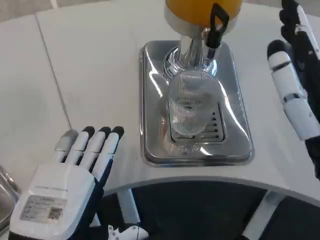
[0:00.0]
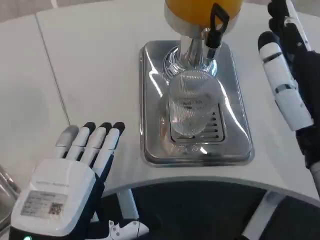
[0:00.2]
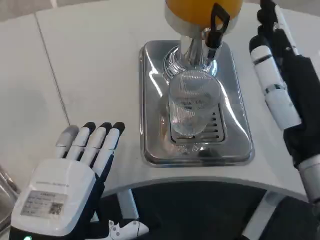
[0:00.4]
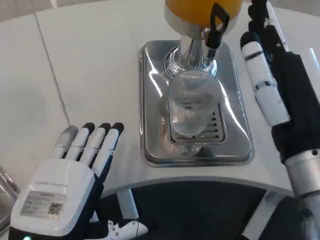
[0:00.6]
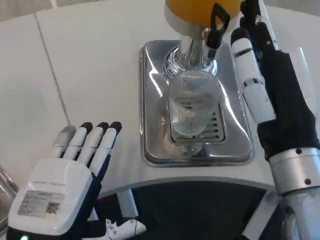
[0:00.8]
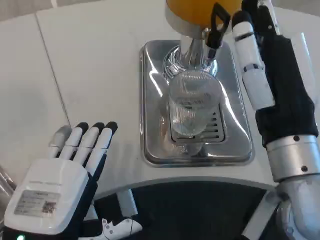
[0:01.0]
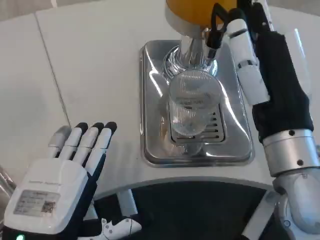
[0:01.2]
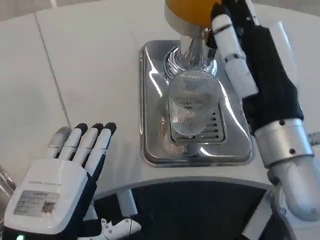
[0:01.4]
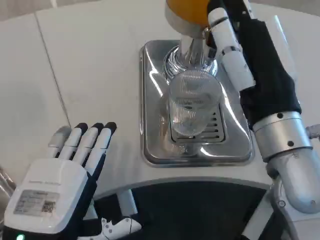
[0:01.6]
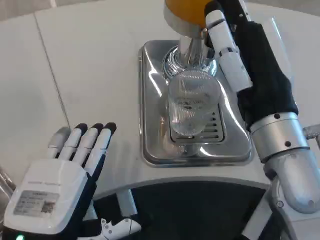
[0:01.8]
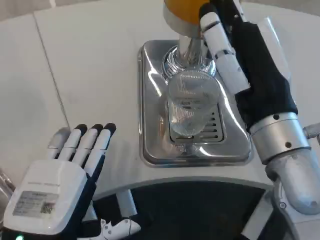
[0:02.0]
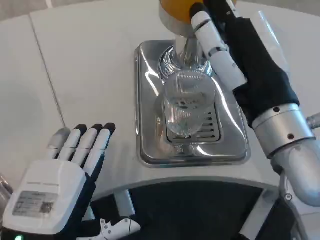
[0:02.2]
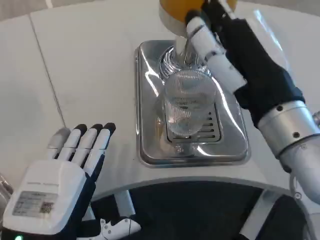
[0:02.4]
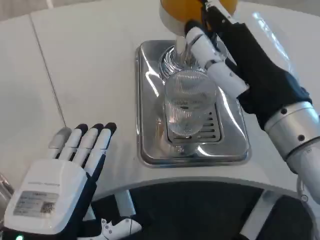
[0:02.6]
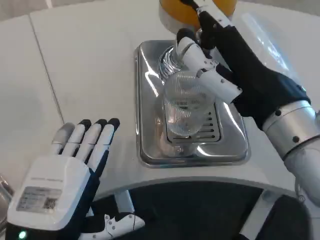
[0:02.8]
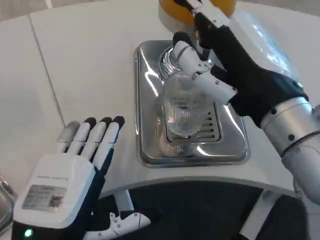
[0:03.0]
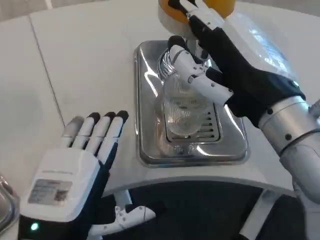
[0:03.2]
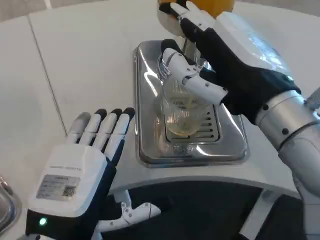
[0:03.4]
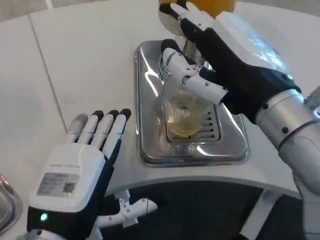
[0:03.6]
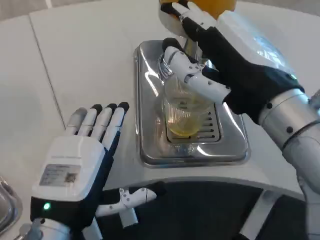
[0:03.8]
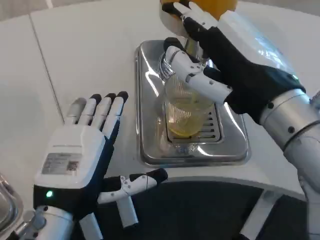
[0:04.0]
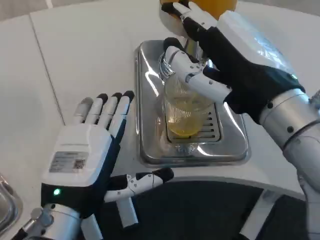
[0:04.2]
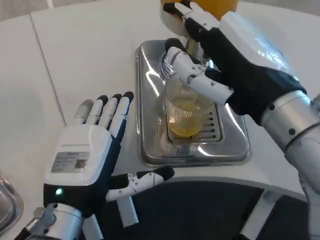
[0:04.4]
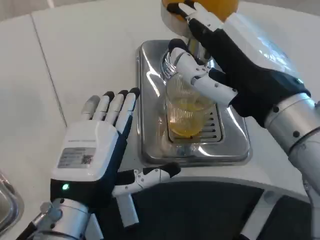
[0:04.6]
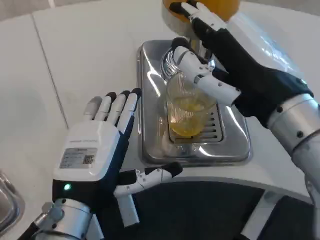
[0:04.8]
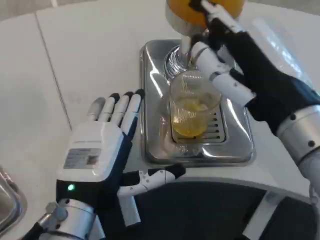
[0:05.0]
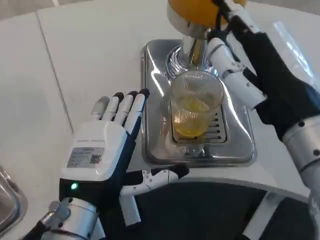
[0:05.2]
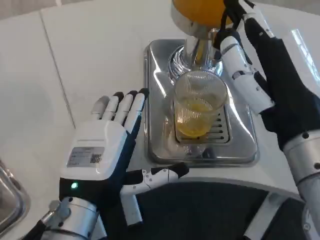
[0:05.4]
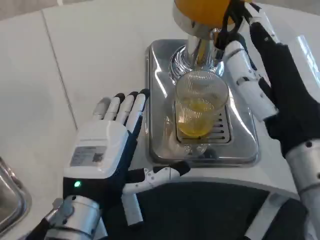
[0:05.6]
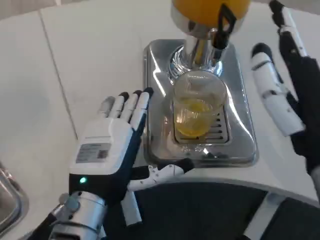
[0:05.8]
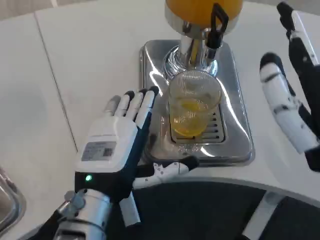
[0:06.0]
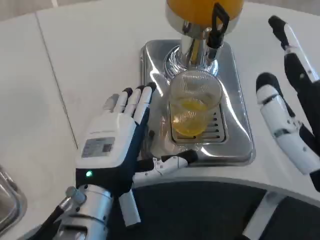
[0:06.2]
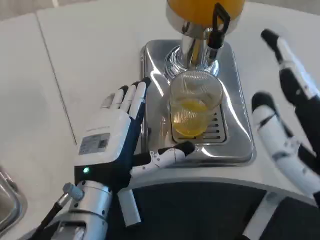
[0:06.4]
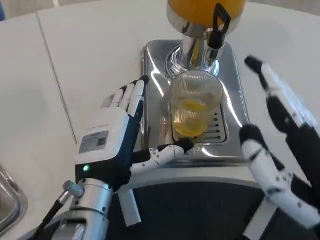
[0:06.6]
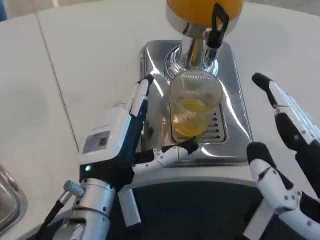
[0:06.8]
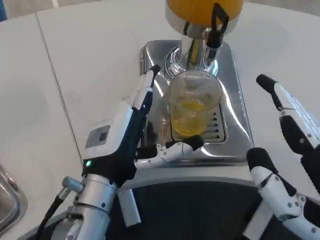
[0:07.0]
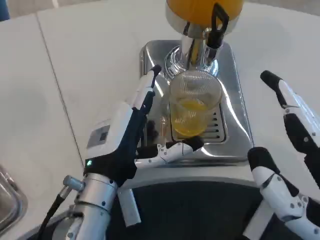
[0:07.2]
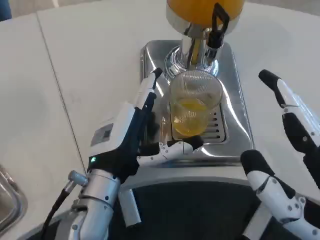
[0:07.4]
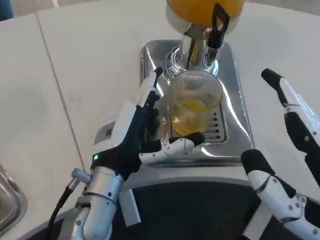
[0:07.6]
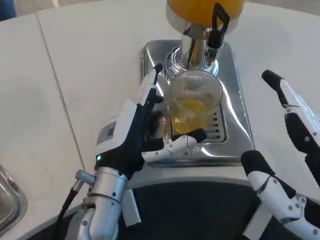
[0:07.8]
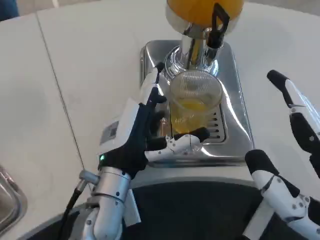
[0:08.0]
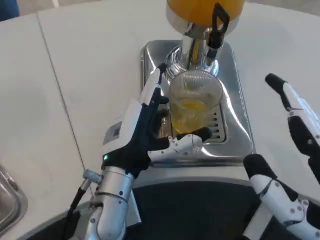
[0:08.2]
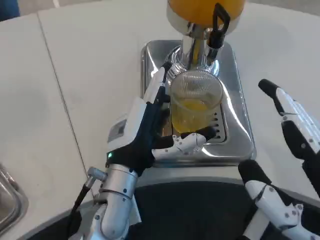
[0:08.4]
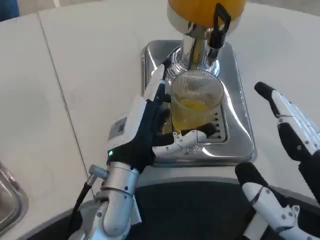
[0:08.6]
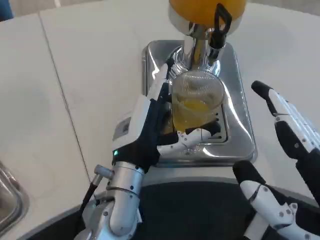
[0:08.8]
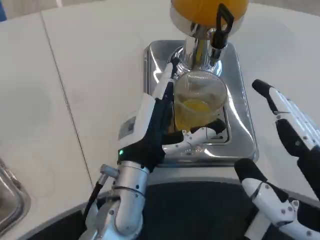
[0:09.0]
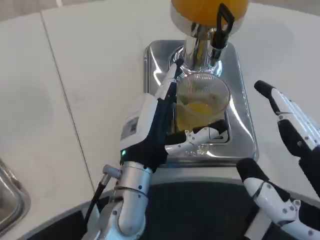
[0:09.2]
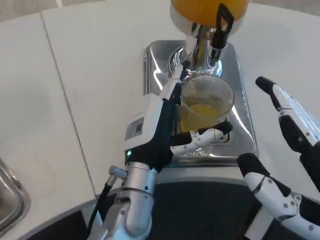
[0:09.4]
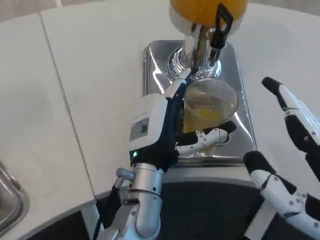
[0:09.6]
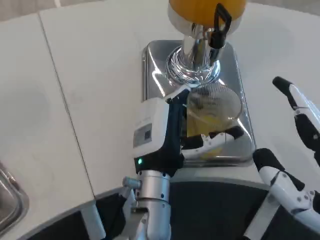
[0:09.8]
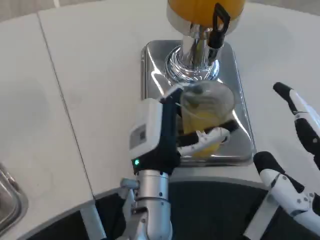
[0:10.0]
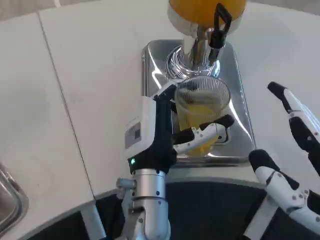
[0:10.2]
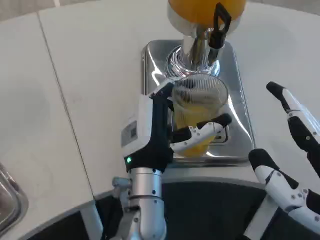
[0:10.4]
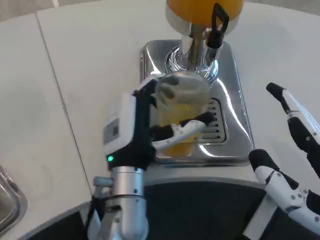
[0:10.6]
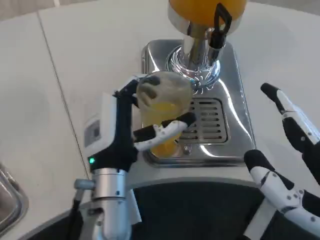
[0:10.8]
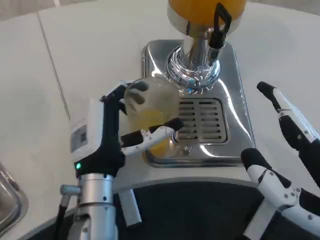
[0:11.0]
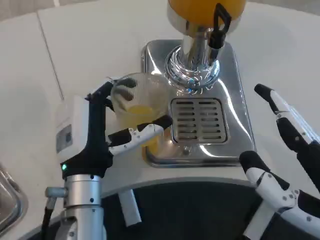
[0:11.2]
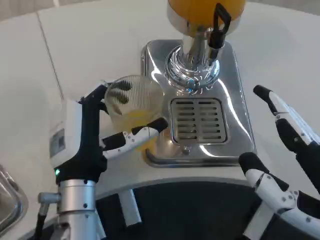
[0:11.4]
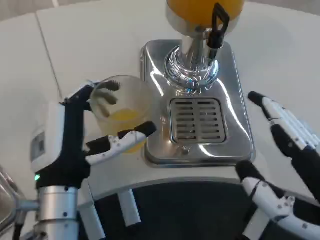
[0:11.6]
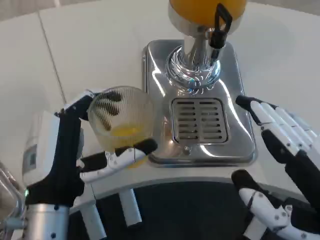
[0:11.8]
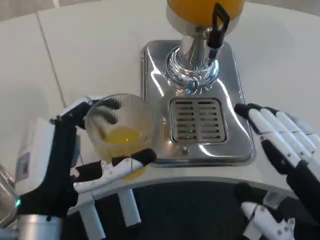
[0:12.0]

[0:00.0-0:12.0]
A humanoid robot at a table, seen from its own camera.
Task of the whole recording: Grasp the cup under the faucet to collect the drink, then remove the cup.
0:00.0 to 0:01.6: The right hand shifts some 5 cm forward.
0:03.0 to 0:04.4: The left hand travels forward by some 5 cm.
0:04.4 to 0:06.0: The right hand goes about 10 cm backward and downward.
0:06.0 to 0:07.6: The right hand heads backward, covering approximately 5 cm.
0:10.4 to 0:12.0: The left hand heads to the left and backward, covering some 15 cm.

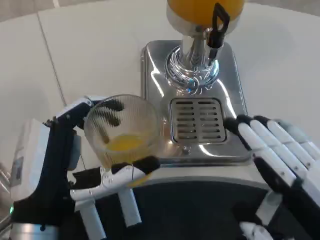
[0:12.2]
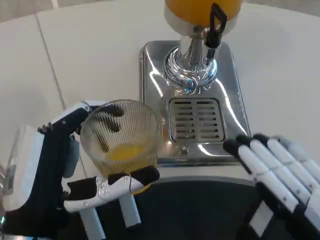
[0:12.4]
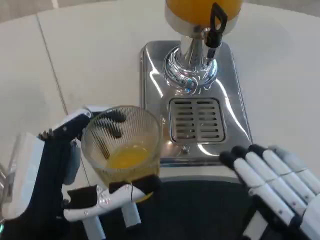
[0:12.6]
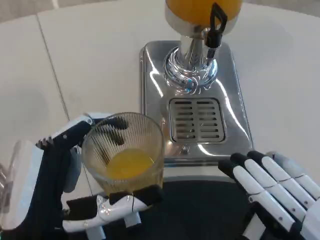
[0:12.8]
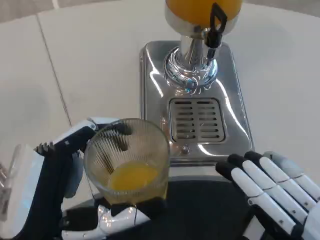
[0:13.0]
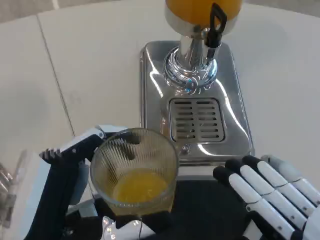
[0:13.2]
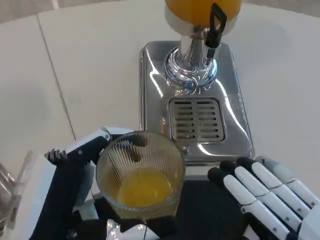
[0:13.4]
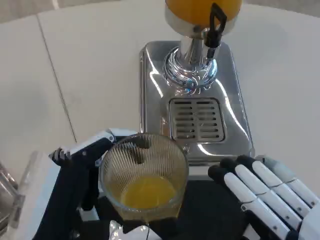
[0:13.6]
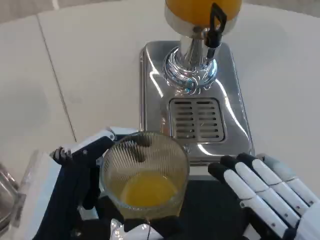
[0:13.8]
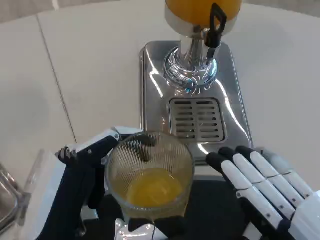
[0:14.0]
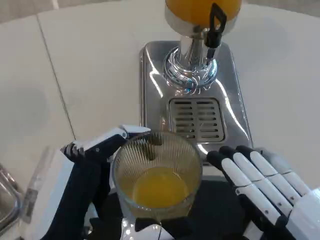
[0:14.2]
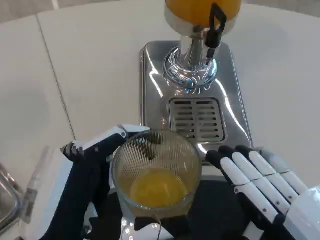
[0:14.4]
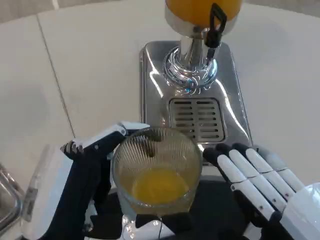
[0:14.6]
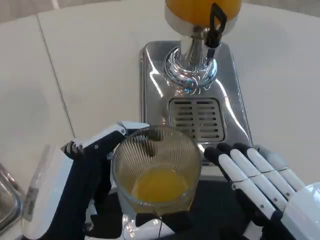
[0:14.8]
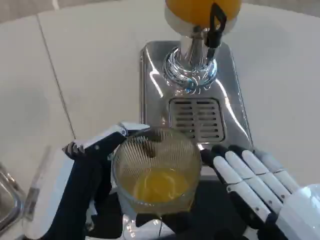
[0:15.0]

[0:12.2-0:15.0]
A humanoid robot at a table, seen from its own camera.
Task of the whole recording: Grasp the cup under the faucet to collect the drink, then remove the cup.
0:13.6 to 0:15.0: The hands make only small movements.

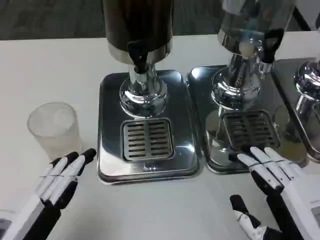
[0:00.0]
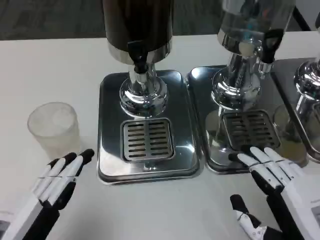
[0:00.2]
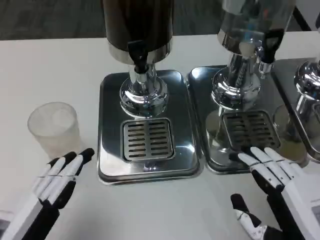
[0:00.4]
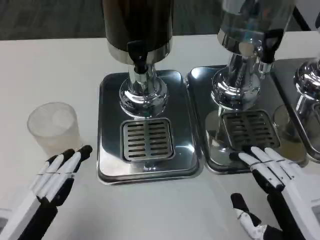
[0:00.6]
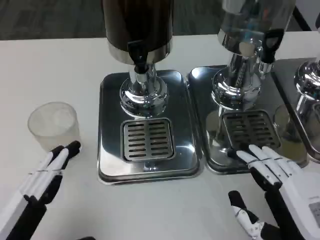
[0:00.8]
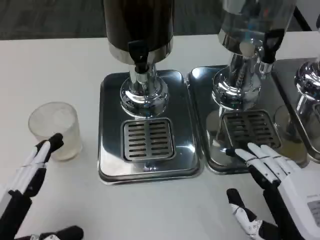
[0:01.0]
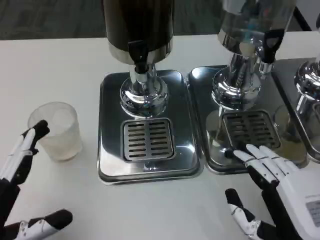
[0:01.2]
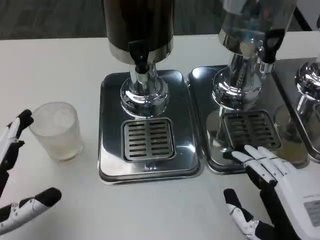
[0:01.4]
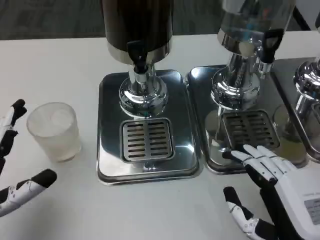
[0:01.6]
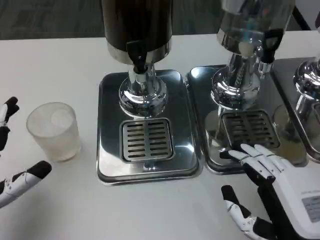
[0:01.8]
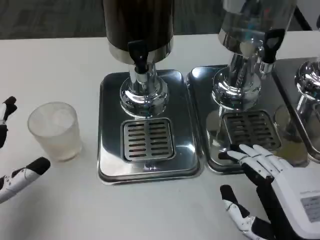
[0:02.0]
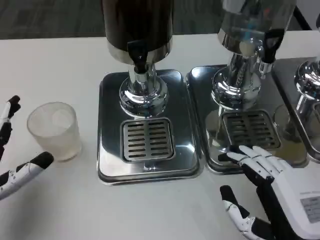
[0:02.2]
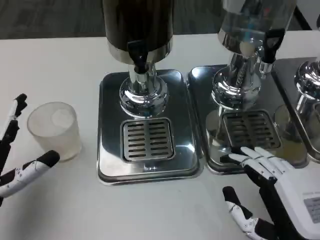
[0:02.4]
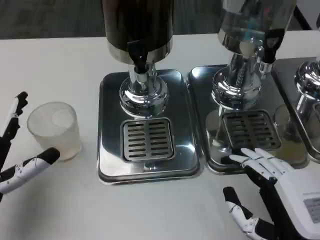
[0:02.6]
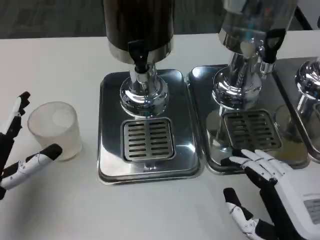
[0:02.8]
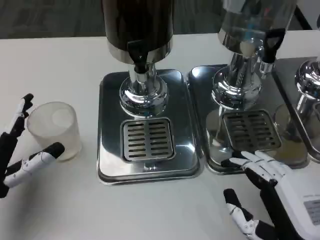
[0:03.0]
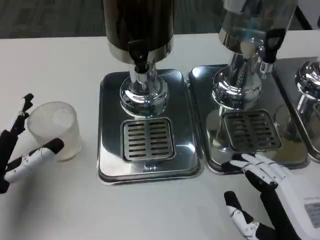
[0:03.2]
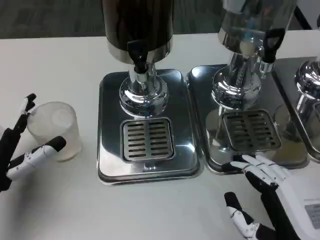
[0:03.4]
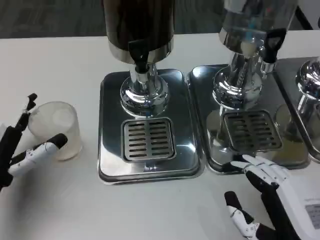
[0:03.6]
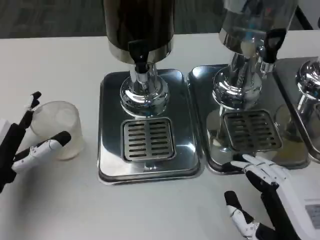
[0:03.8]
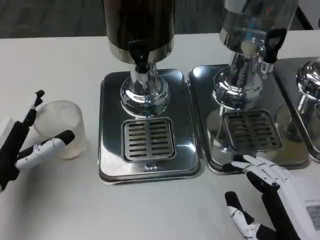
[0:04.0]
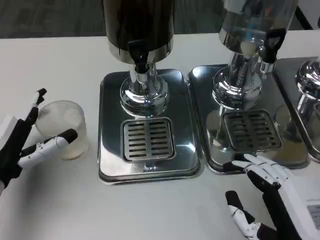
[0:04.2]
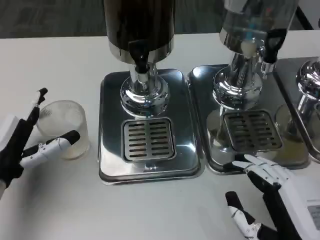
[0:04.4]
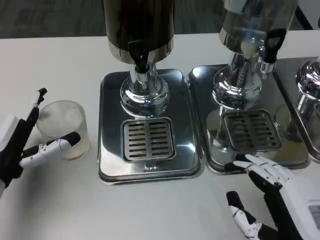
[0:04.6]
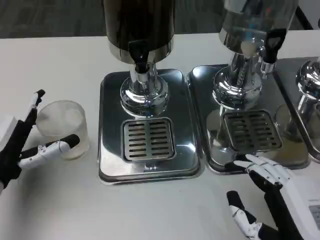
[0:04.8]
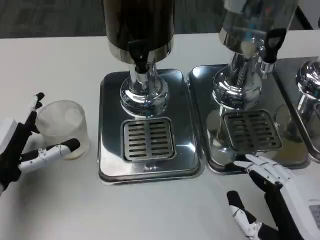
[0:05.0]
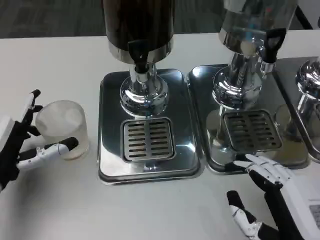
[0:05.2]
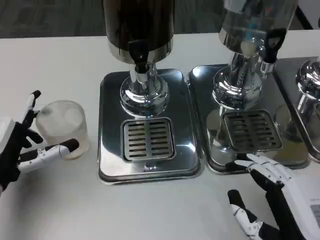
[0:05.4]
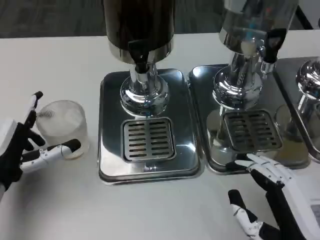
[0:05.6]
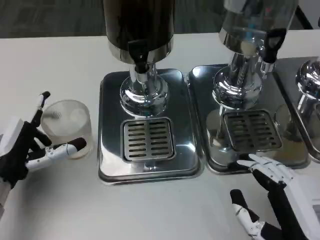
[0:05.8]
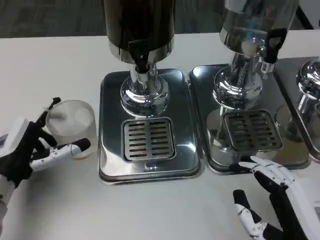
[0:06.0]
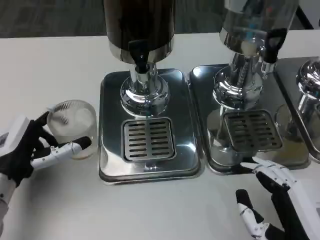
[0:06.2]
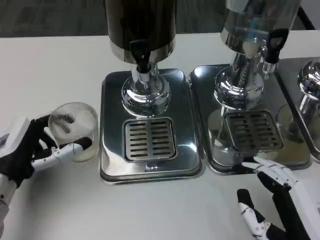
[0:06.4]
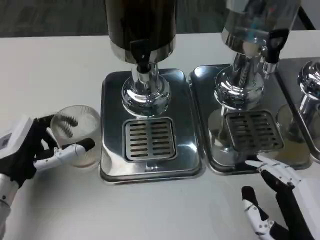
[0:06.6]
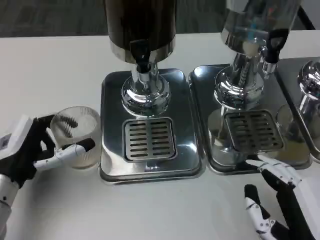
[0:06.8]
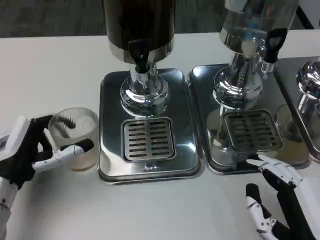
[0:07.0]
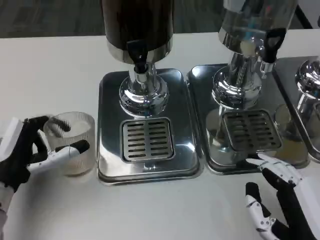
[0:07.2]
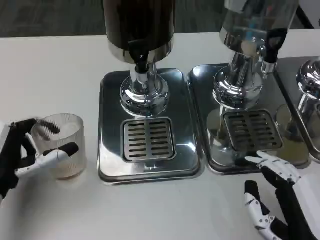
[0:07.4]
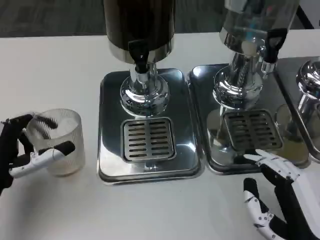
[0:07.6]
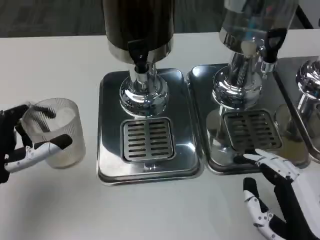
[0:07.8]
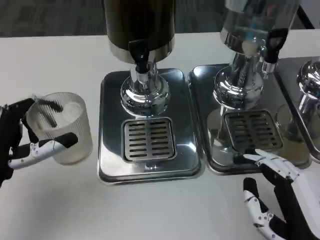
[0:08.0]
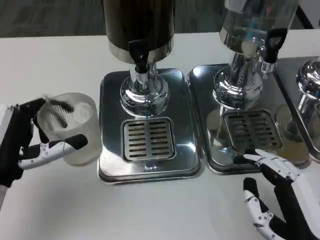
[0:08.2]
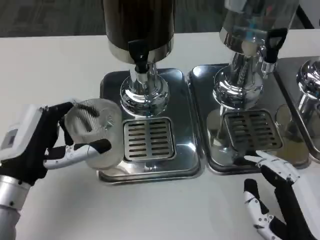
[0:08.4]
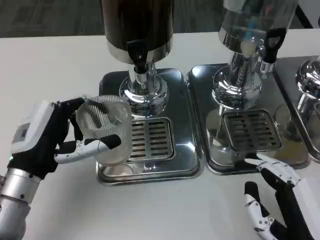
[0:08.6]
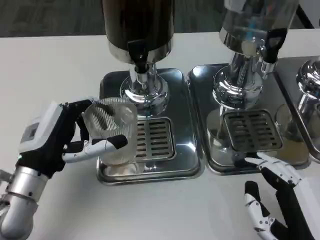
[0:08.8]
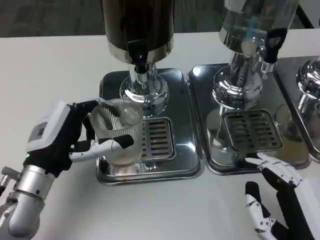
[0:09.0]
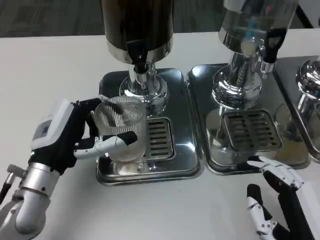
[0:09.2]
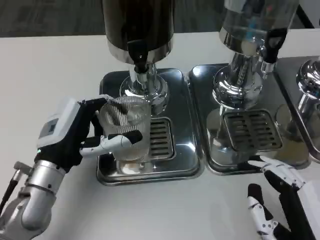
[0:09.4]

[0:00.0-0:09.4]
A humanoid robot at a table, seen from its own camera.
Task of the whole recording: Grasp the cup under the faucet to collect the drink, then remove the cup.
0:00.0 to 0:01.6: The left hand changes place by some 5 cm.
0:01.6 to 0:03.2: The left hand goes about 5 cm forward.
0:03.2 to 0:07.8: The hands make only small movements.
0:07.8 to 0:09.4: The left hand heads to the right, covering some 10 cm.
